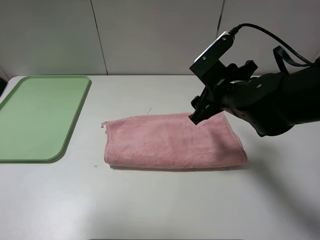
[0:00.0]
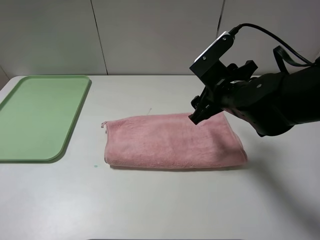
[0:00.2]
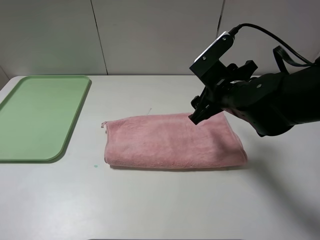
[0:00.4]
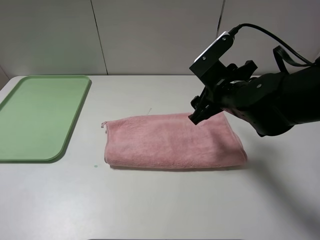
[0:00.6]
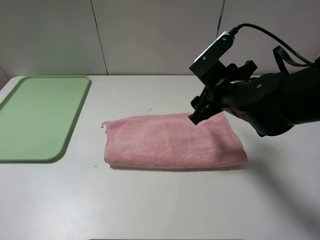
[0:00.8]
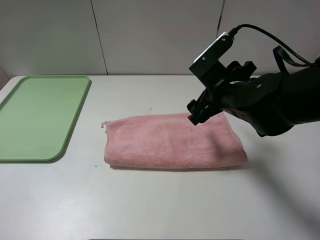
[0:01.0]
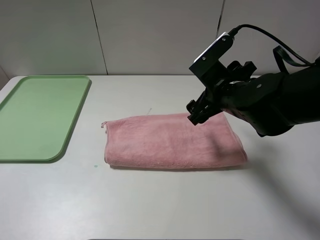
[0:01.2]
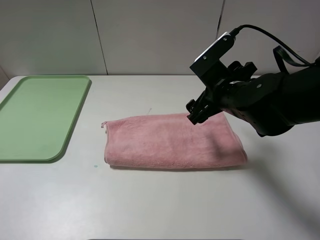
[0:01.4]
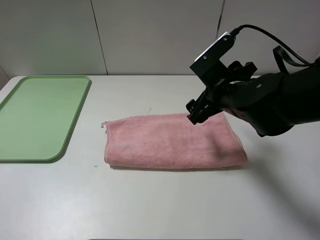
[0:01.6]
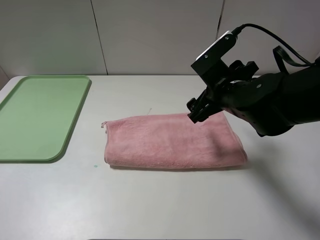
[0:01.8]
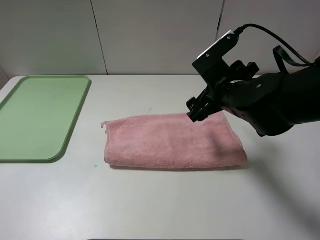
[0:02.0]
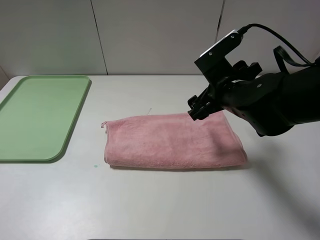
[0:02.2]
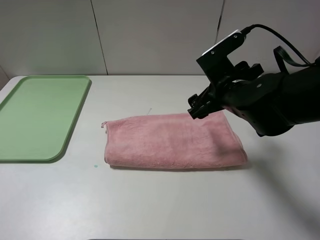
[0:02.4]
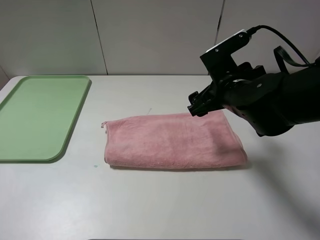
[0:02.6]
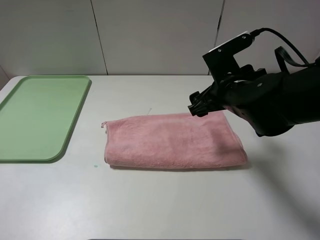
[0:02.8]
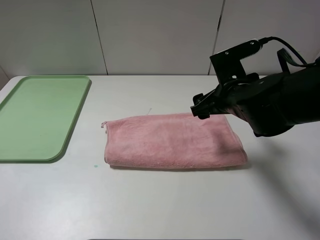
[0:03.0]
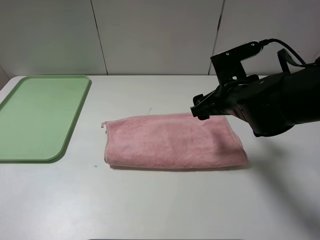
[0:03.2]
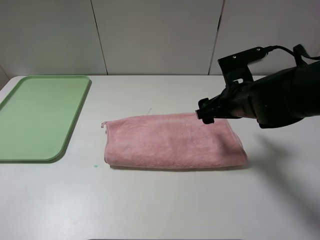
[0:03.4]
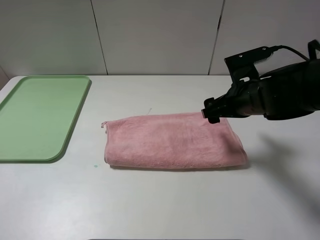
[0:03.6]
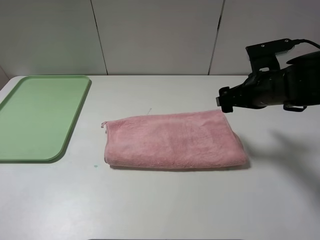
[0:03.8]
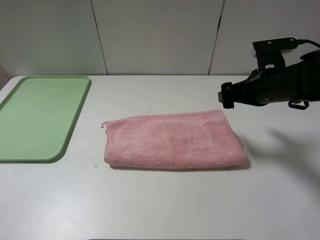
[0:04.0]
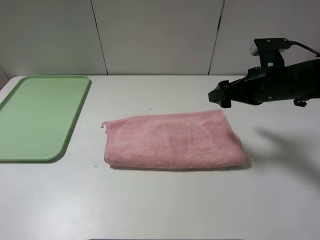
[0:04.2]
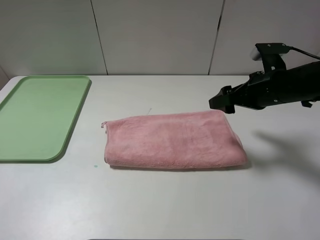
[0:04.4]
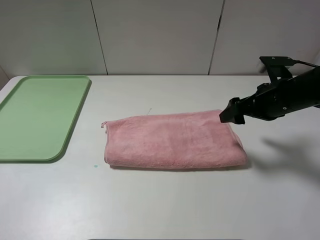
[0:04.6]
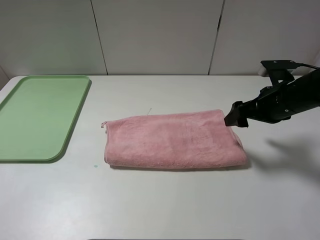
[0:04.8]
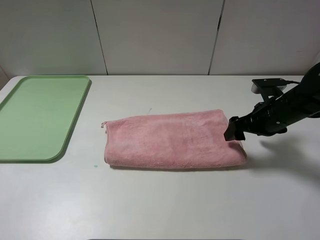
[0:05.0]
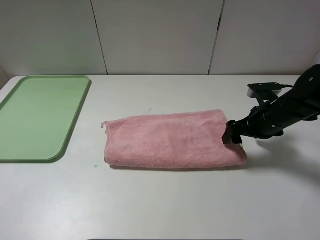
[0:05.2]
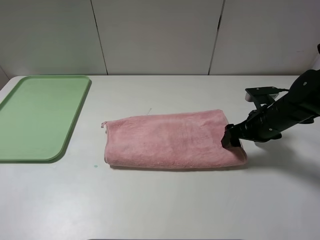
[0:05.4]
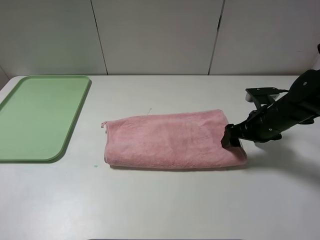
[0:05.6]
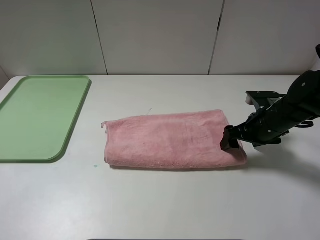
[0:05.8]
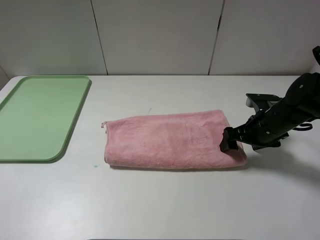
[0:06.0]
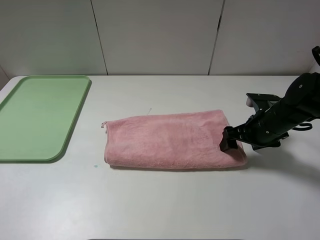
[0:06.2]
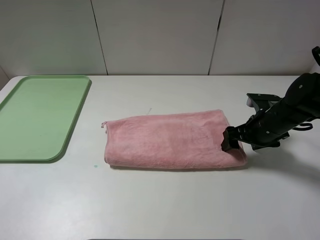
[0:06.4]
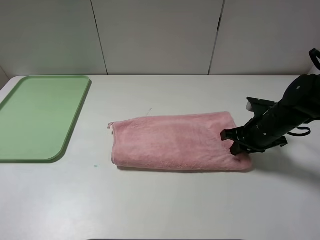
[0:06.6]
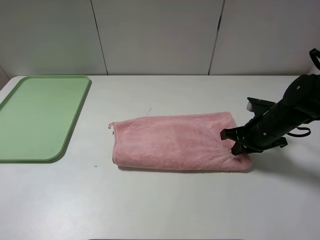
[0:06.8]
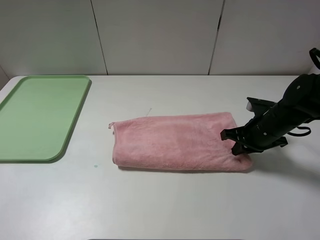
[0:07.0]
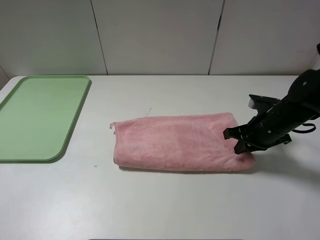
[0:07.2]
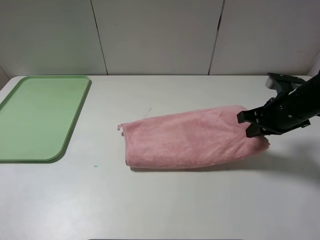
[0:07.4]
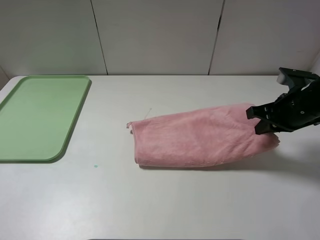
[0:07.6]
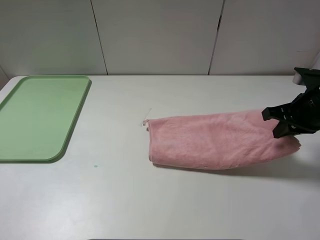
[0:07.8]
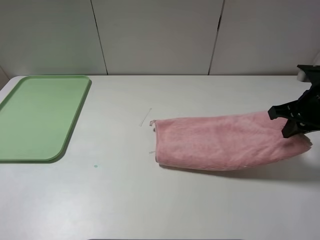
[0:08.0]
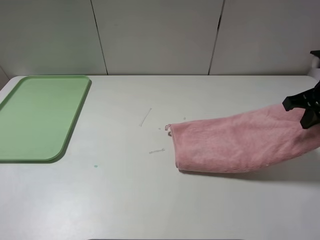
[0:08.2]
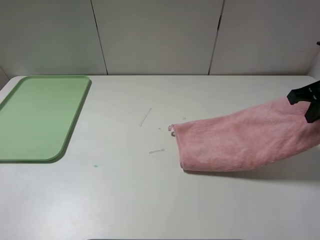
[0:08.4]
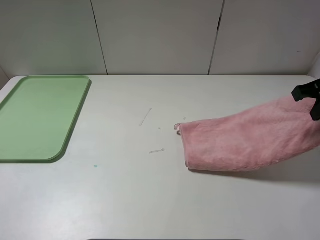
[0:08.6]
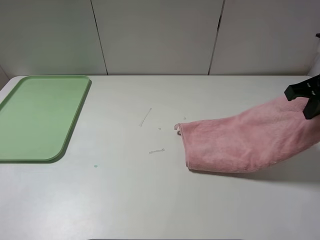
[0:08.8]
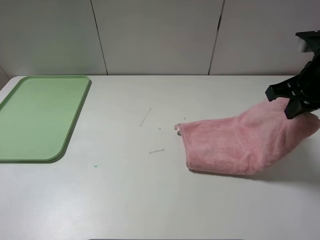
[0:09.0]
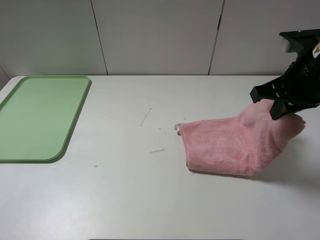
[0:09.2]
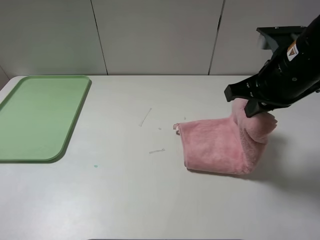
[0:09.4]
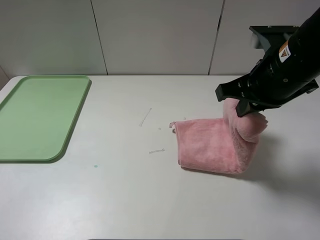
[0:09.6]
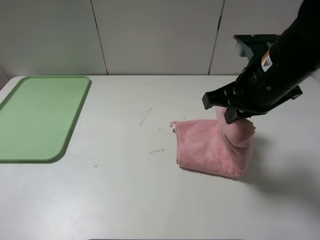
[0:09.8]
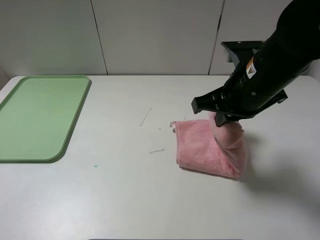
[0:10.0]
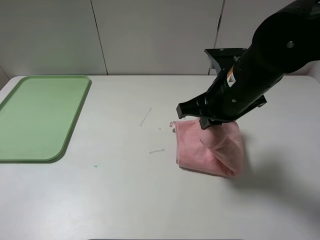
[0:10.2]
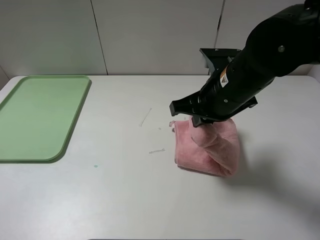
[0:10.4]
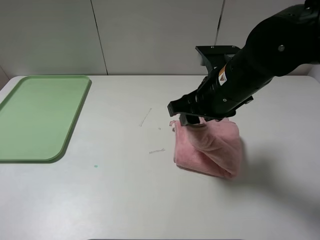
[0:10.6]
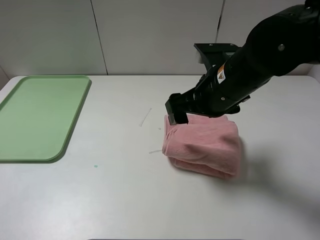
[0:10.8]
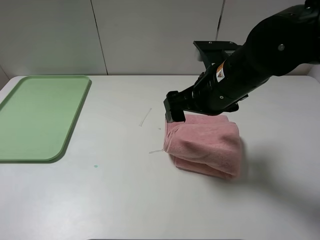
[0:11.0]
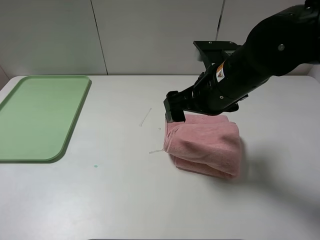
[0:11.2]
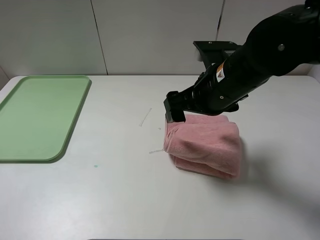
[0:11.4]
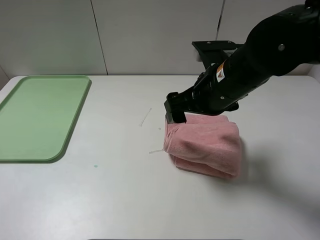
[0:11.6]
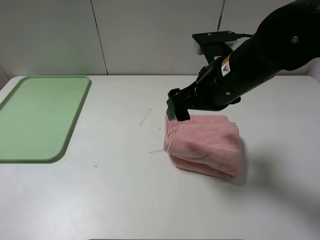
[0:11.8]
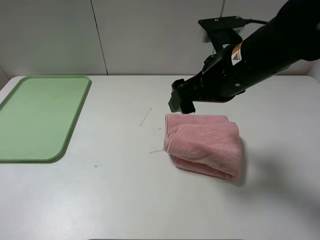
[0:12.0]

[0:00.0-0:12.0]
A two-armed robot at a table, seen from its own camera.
Step, 0:00.0 to 0:11.2: Fold the pink towel from right to left with right gripper.
0:00.0 to 0:01.6: The left gripper shifts some 15 cm downward, backward and to the left.
0:03.0 to 0:04.4: The right gripper goes approximately 10 cm to the right.
0:04.4 to 0:06.0: The right gripper heads downward, covering about 10 cm.
0:06.0 to 0:07.6: The right gripper goes roughly 10 cm upward, and closes up.
0:07.6 to 0:09.0: The right gripper heads upward, covering roughly 10 cm.
0:09.0 to 0:10.4: The right gripper moves to the left, roughly 15 cm.
0:10.4 to 0:12.0: The right gripper opens.

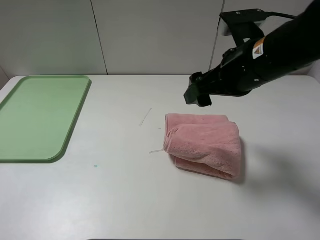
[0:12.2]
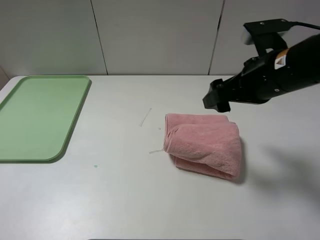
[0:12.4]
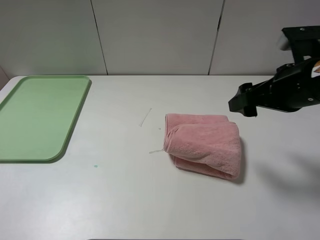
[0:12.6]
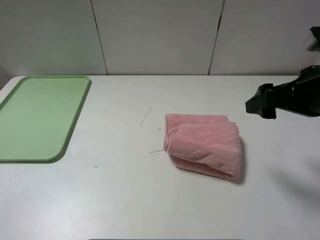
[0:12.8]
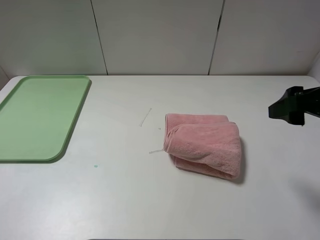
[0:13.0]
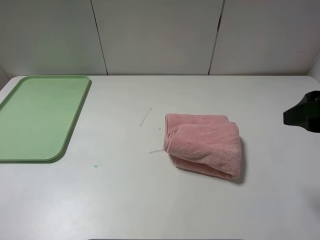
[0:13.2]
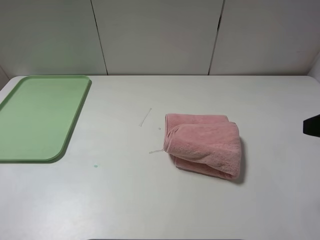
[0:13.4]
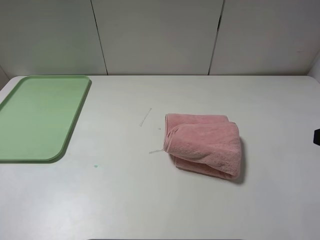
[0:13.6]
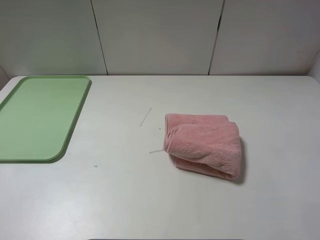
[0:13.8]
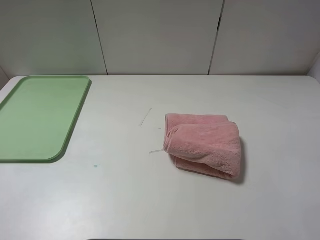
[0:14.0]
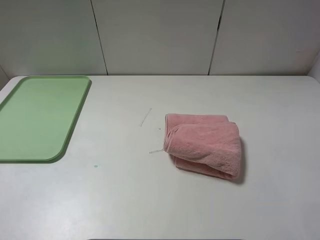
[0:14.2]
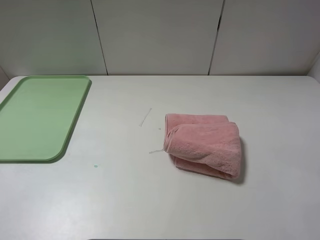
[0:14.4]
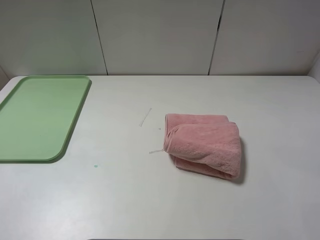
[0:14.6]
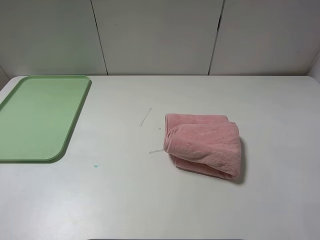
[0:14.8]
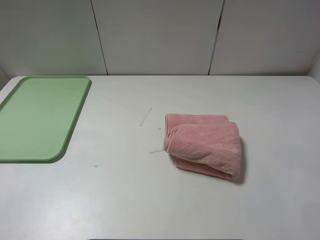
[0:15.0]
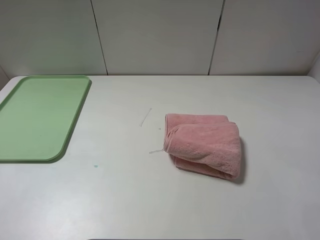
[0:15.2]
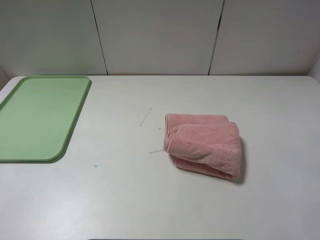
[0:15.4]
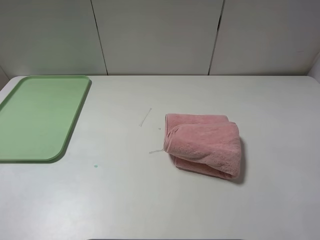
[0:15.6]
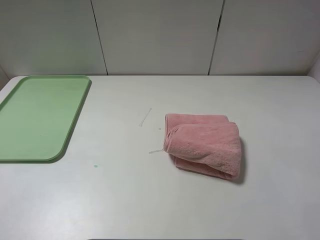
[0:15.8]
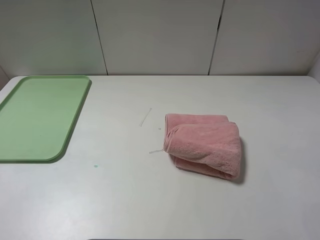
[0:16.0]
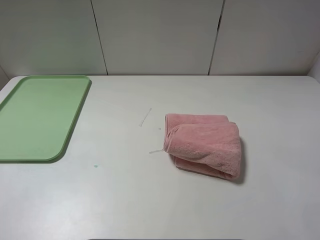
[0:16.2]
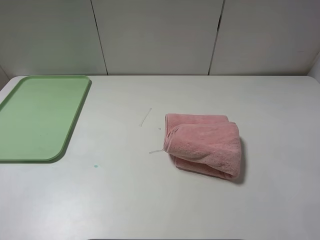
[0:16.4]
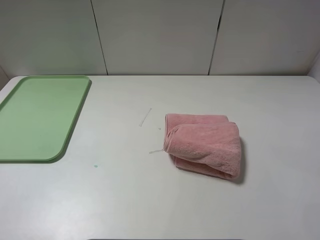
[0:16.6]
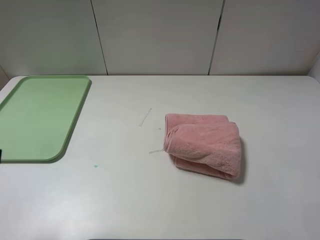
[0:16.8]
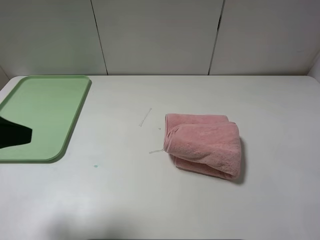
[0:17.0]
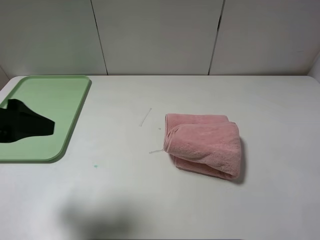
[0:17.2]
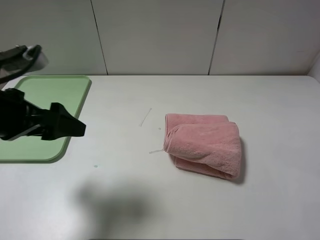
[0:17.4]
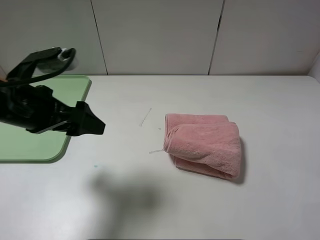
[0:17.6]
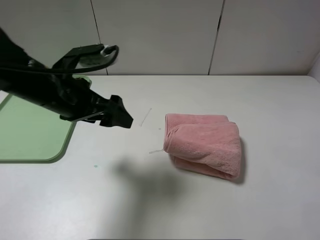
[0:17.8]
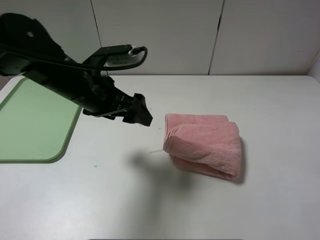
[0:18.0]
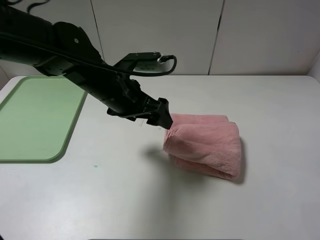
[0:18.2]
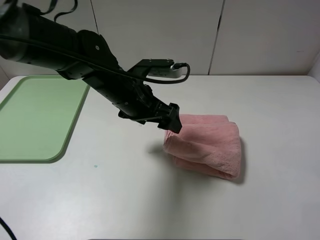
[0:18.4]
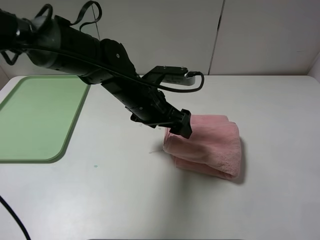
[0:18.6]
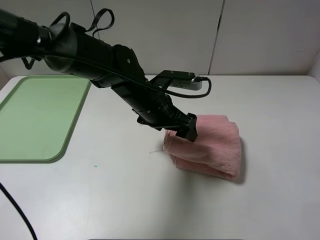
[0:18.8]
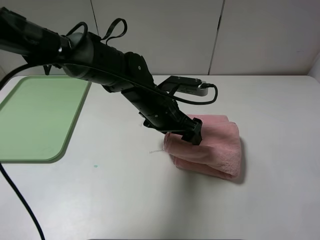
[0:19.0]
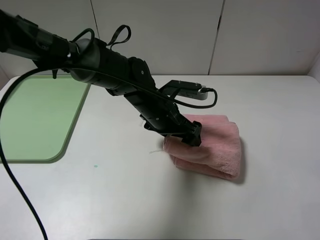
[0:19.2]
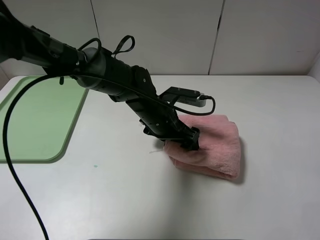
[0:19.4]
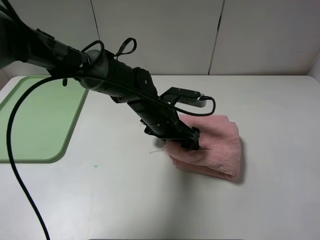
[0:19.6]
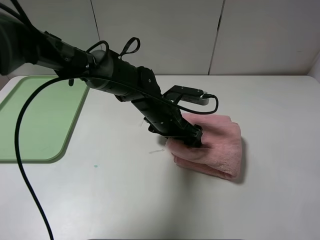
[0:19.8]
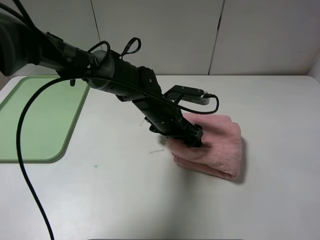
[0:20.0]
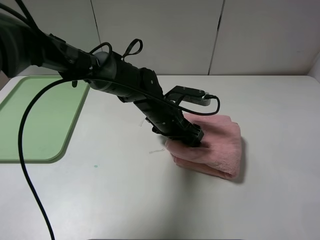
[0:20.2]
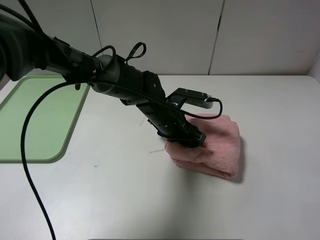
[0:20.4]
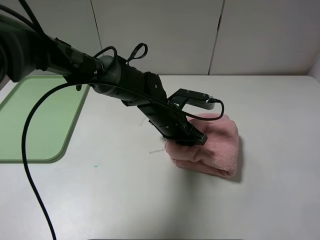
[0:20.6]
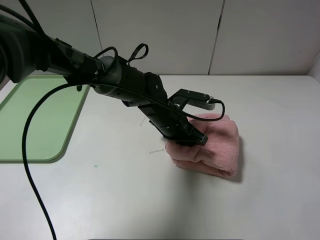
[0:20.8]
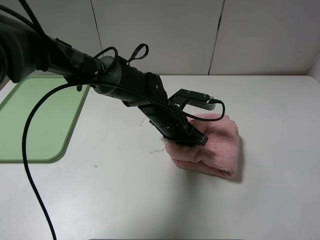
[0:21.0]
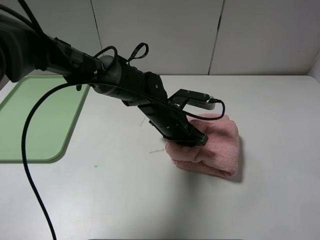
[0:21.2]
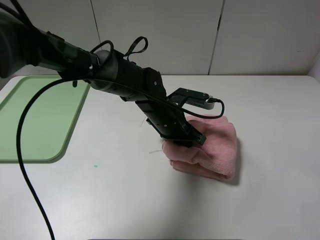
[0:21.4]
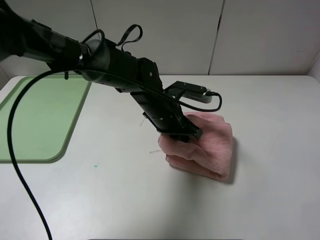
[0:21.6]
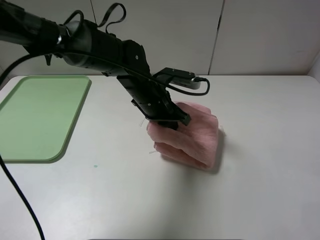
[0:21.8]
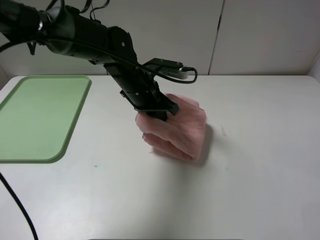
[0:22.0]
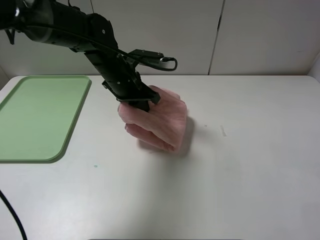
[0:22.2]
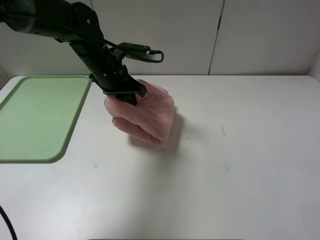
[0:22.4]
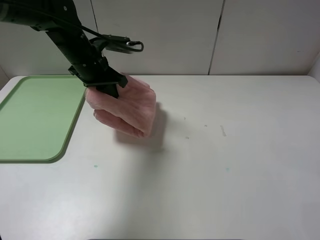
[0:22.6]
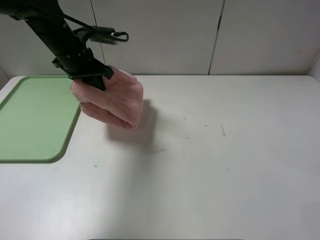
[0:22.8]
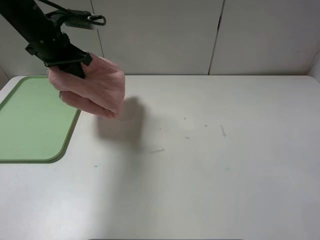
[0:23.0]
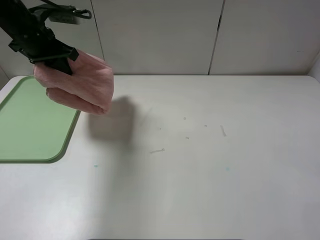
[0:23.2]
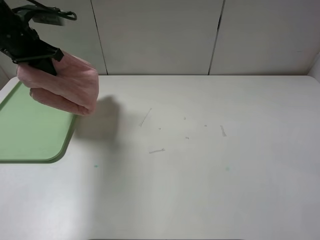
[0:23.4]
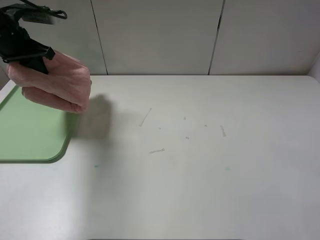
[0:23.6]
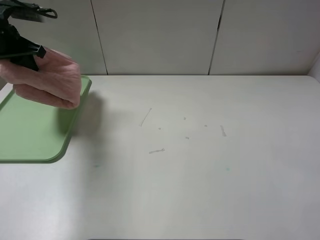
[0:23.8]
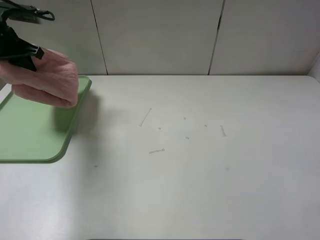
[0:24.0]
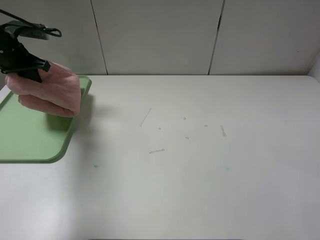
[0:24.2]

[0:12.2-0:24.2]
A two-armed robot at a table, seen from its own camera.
0:12.2 to 0:13.8: The right gripper moves backward and to the right, roughly 25 cm.
0:16.6 to 0:18.2: The left gripper moves forward and to the right, roughly 30 cm.
0:18.2 to 0:19.8: The left gripper travels downward and to the right by some 10 cm.
0:19.8 to 0:21.2: The left gripper closes its fingers.
0:21.2 to 0:22.6: The left gripper is displaced to the left and upward by roughly 20 cm.
0:22.6 to 0:24.2: The left gripper heads to the left, covering about 20 cm.
